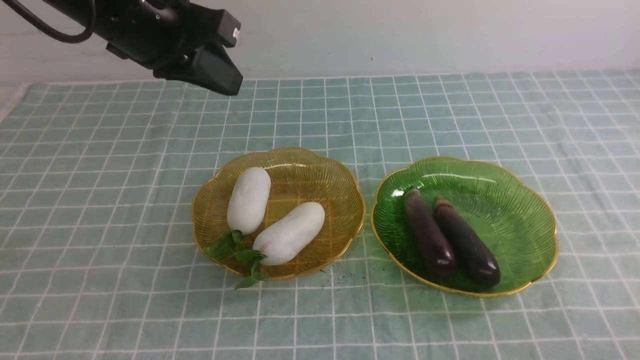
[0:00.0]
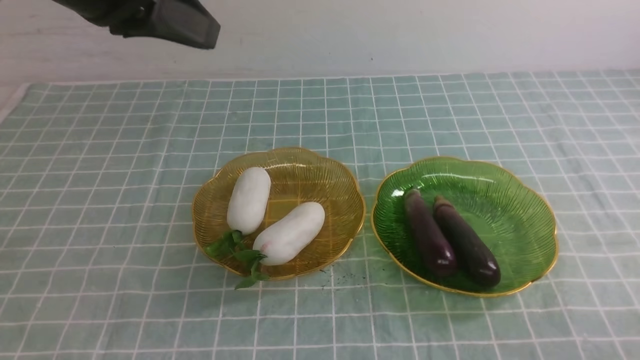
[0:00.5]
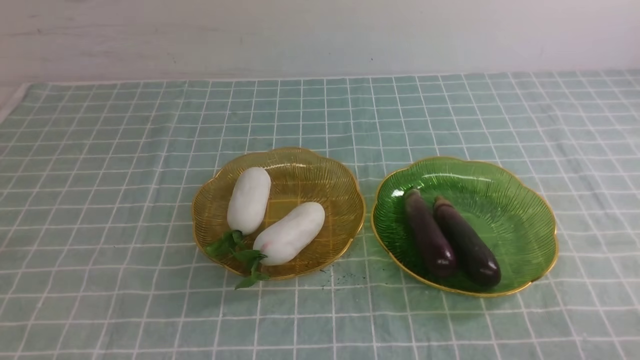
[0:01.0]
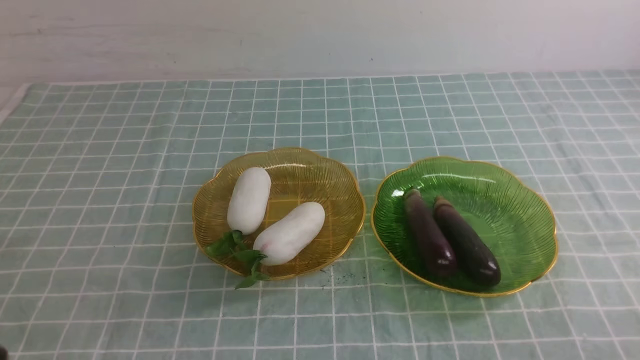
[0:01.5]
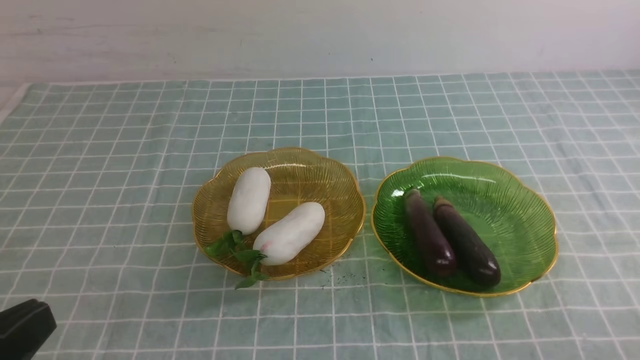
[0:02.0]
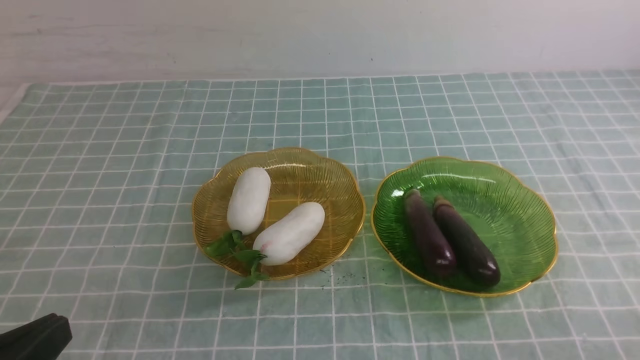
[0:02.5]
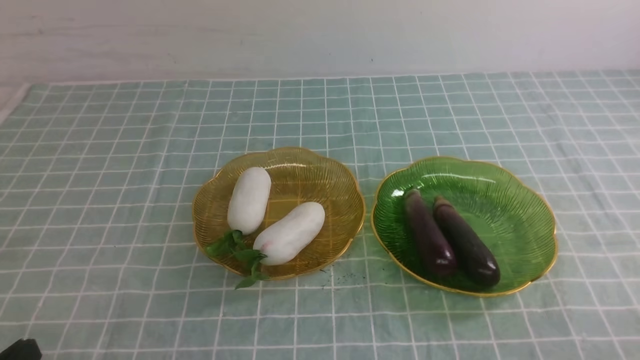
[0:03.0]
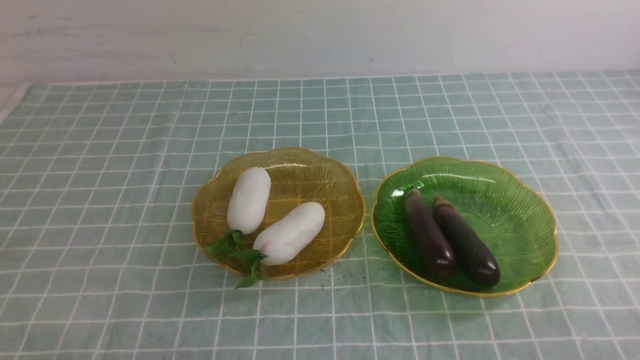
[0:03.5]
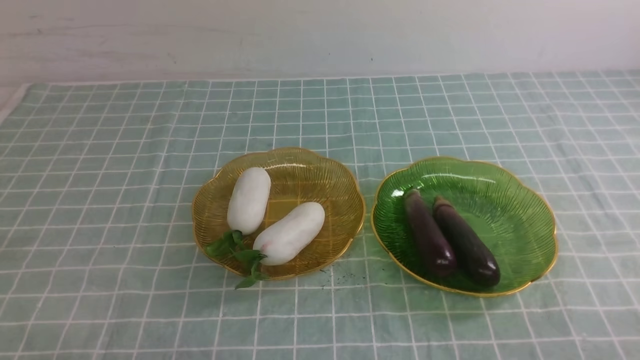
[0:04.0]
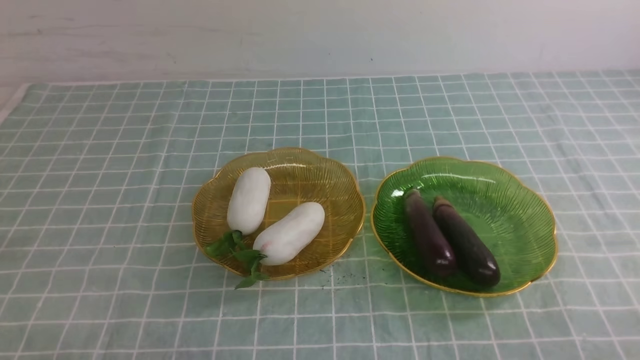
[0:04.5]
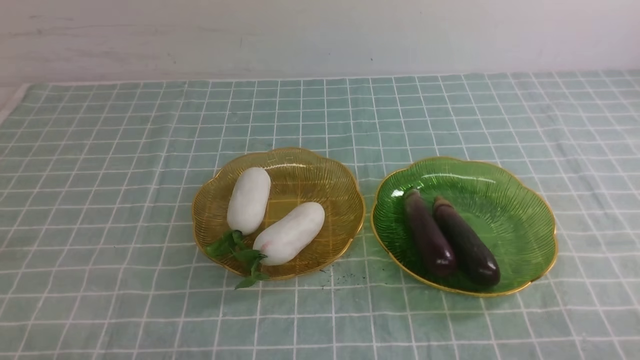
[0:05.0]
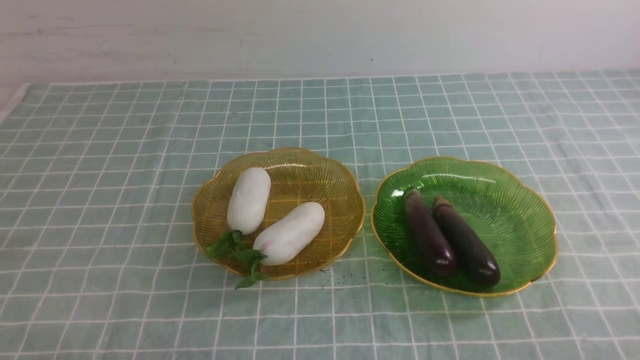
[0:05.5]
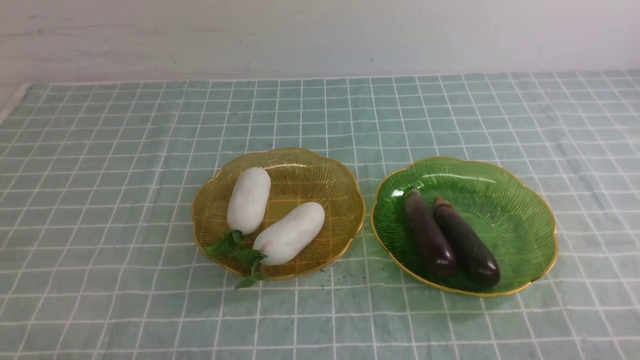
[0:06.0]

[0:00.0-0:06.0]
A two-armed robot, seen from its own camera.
0:00.0 to 0:02.0: The left gripper heads backward, covering roughly 30 cm.
0:02.0 to 0:04.0: The left gripper shifts approximately 15 cm downward.
0:04.0 to 0:06.0: Neither gripper changes place.
